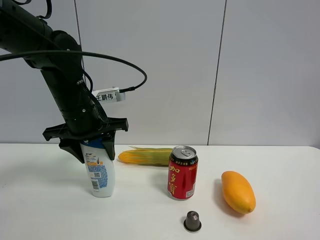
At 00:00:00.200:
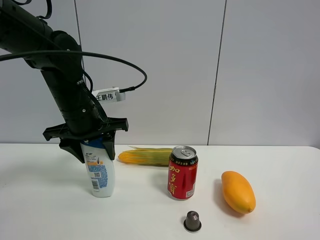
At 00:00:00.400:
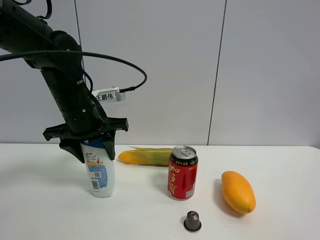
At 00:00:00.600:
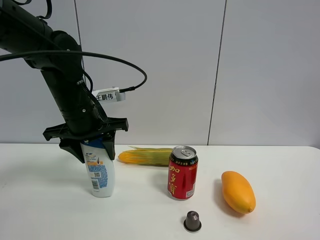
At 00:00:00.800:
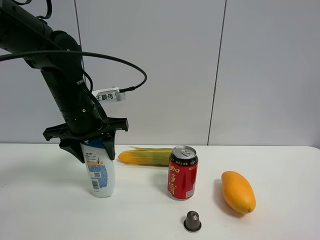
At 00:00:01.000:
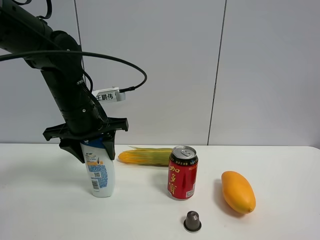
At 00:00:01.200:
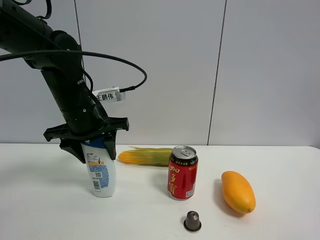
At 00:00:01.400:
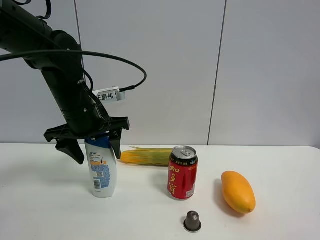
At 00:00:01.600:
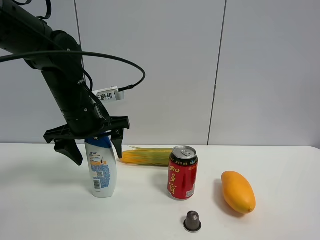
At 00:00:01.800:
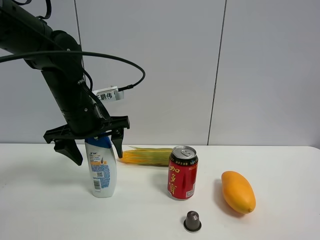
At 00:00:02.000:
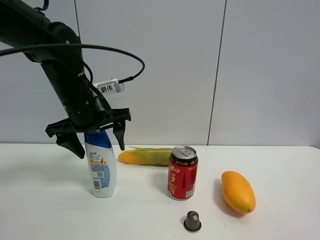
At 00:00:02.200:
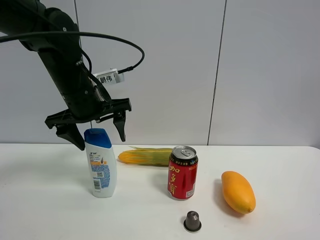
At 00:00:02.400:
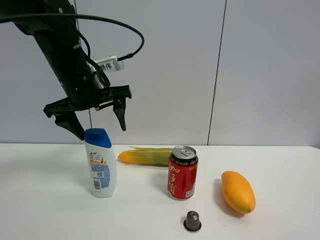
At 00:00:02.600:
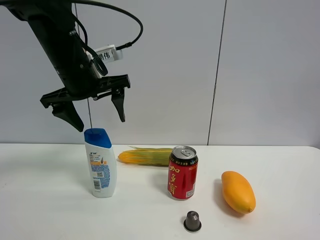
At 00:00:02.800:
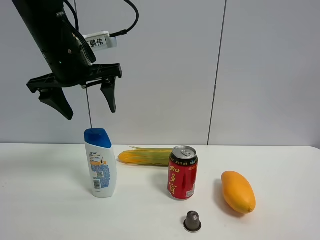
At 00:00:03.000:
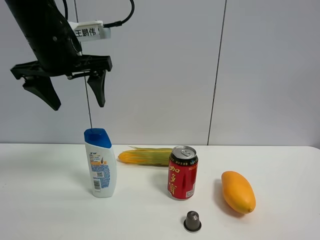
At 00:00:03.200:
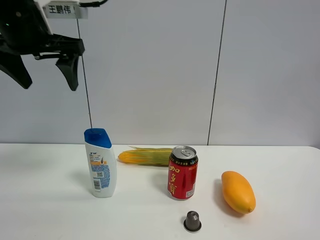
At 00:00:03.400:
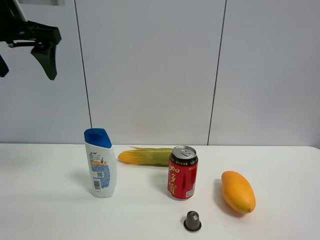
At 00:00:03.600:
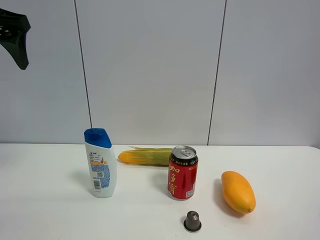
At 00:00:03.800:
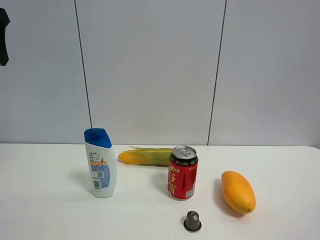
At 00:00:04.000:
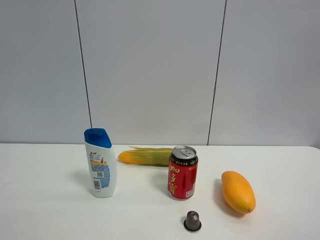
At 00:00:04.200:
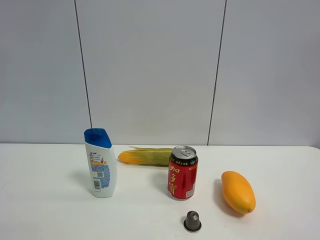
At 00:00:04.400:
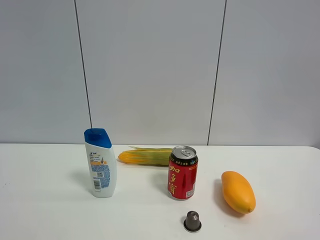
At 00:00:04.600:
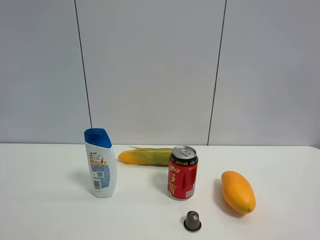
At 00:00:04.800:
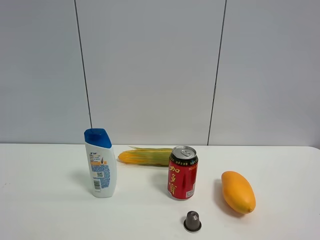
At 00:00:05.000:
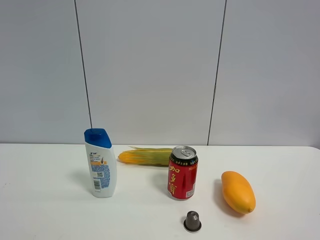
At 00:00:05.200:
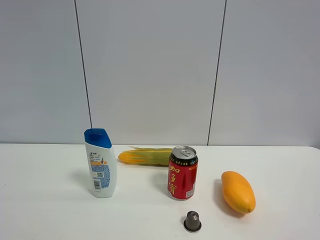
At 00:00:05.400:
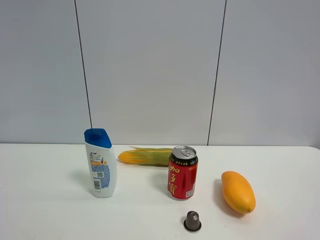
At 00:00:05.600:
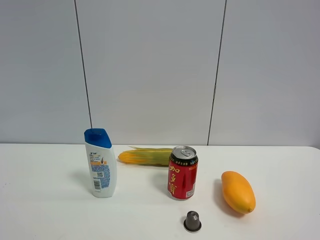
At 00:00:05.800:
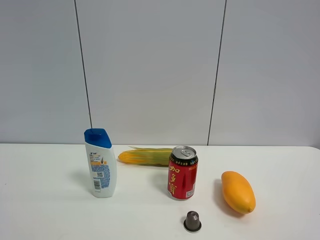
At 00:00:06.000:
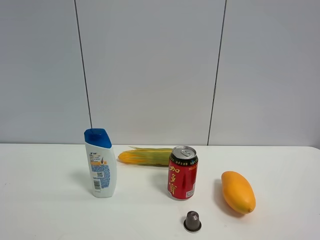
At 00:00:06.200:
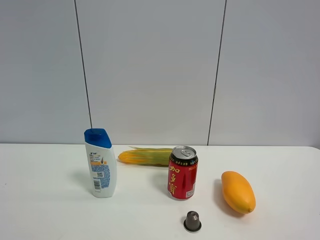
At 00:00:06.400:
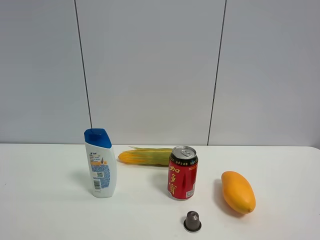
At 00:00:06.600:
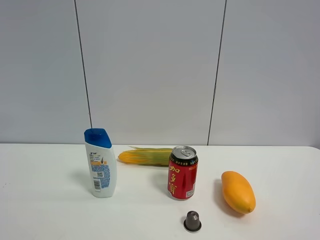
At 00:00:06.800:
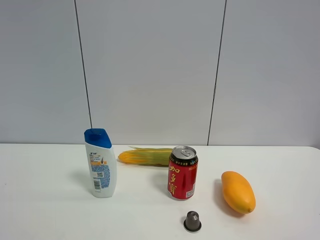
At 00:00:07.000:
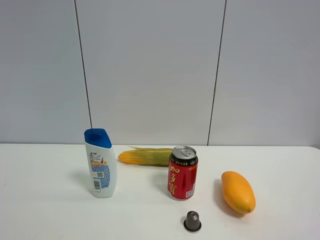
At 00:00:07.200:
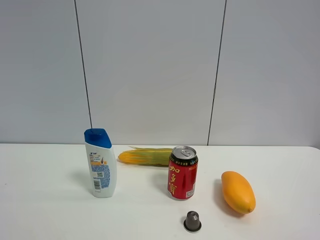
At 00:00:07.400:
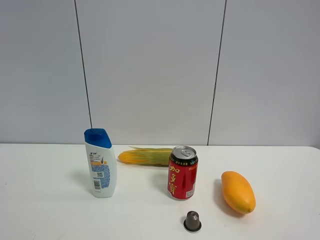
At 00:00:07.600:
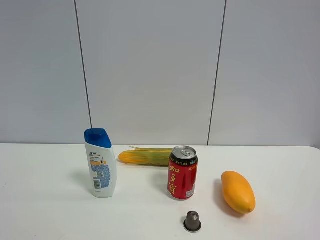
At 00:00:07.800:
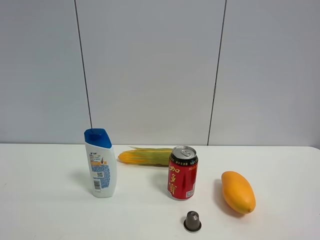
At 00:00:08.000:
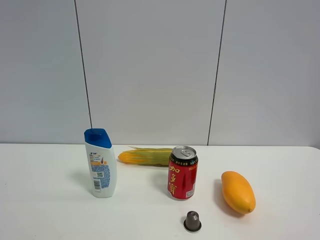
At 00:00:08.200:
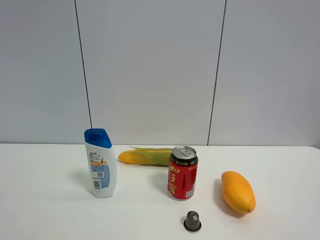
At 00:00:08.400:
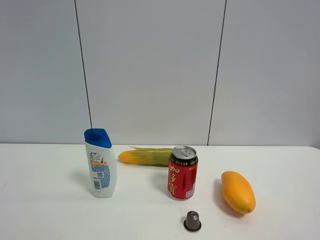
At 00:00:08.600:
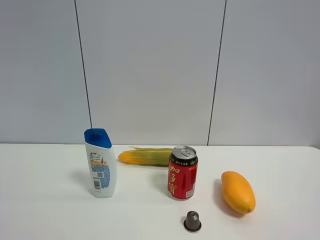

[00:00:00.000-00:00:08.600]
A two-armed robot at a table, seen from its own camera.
Task of the whole recording: the gripper move the object.
00:00:00.000 to 00:00:01.400: The left gripper opens its fingers.
00:00:01.400 to 00:00:02.800: The left gripper goes approximately 10 cm upward.
00:00:02.800 to 00:00:04.400: The left gripper shifts approximately 25 cm to the left and backward.
